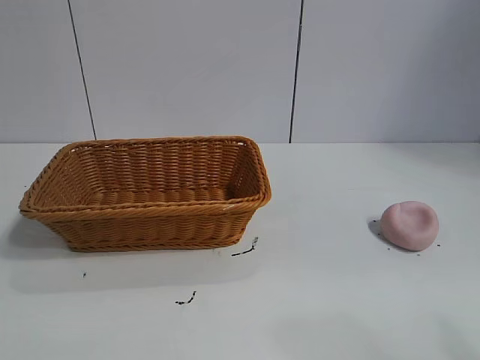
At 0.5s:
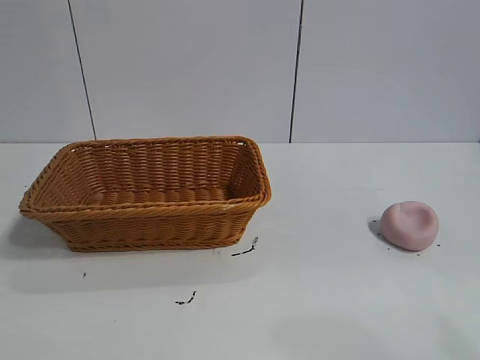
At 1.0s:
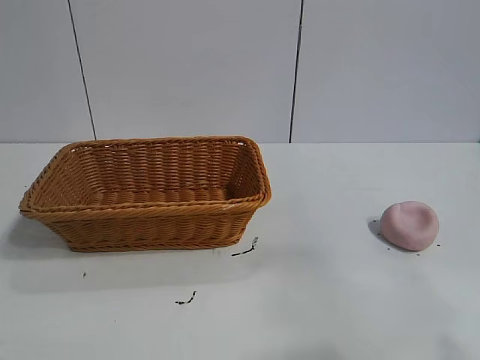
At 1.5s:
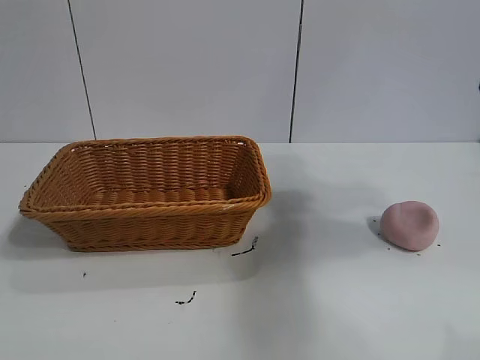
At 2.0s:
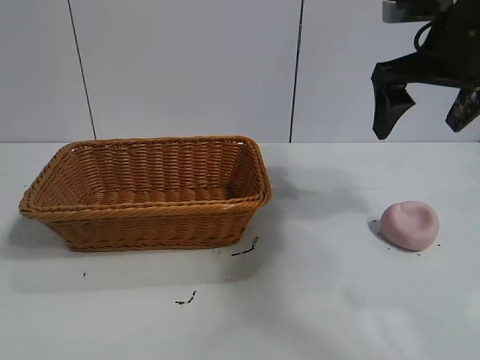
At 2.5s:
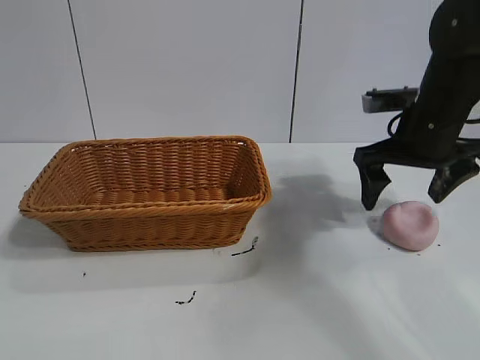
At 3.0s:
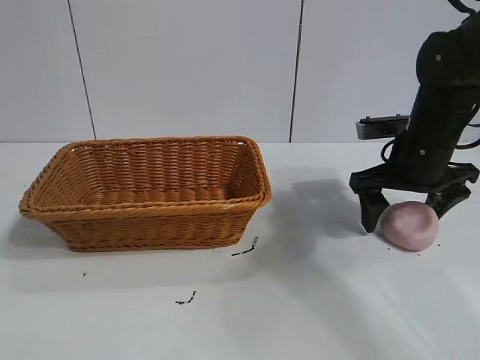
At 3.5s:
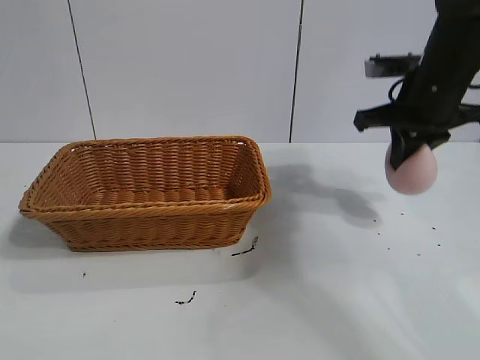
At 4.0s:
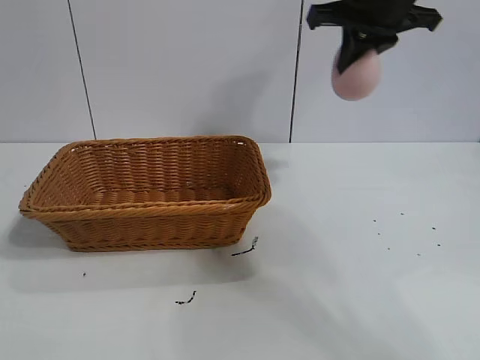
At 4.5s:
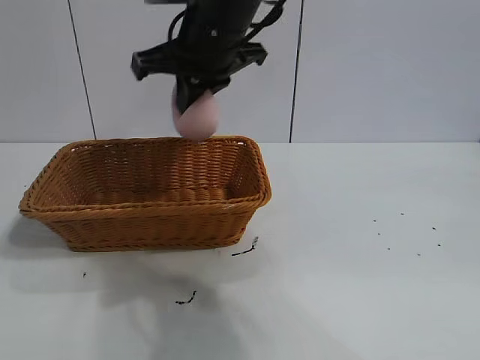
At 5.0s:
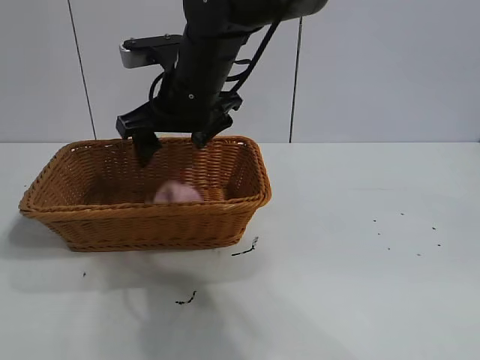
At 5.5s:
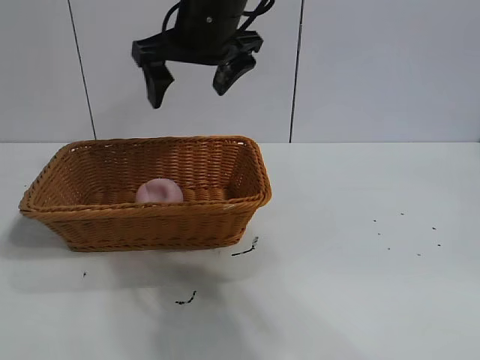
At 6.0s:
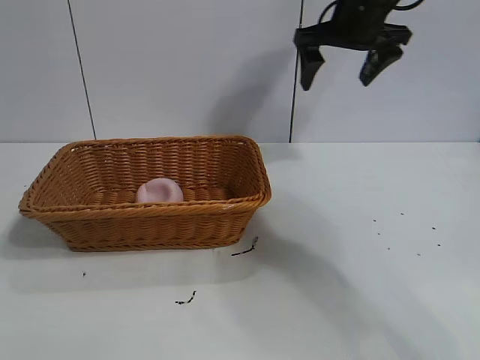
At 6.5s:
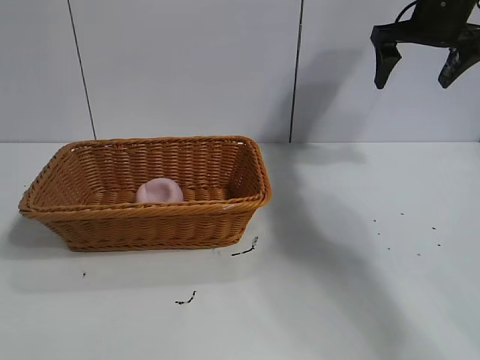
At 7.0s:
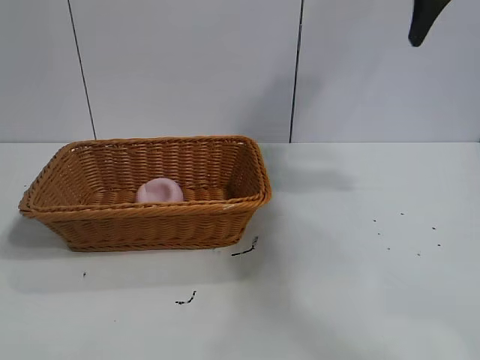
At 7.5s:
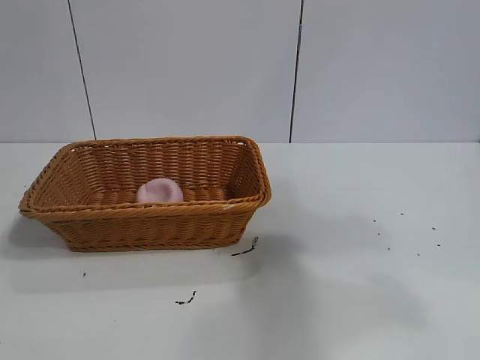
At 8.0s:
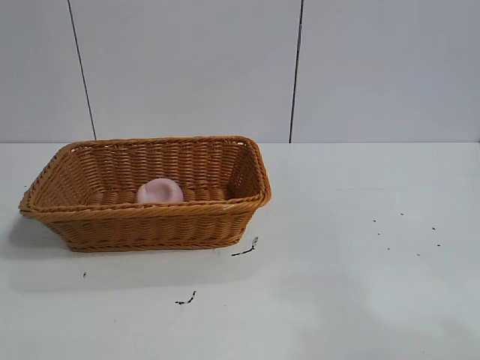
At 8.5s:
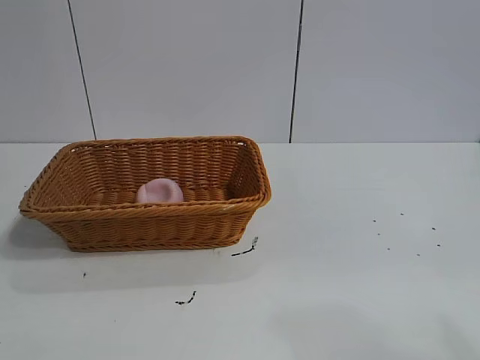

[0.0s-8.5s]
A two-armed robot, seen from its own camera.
Task of the whole recording: pick up the peach and put it into the basket.
Step, 1.0s to 3.0s: Grasp the peach with right gripper.
Step, 3.5s to 5.0s: Place the peach in the basket with right gripper.
